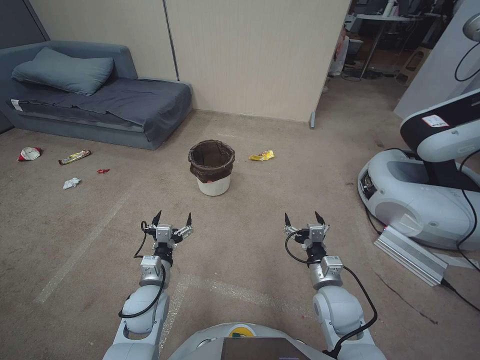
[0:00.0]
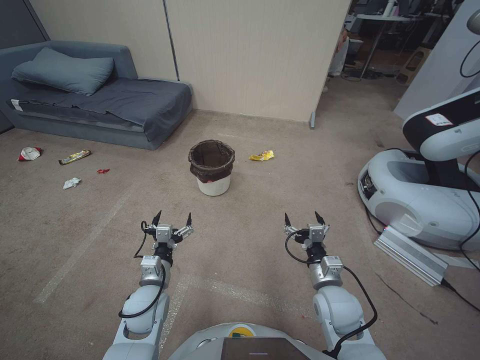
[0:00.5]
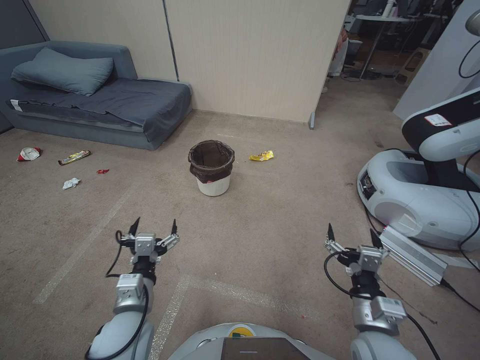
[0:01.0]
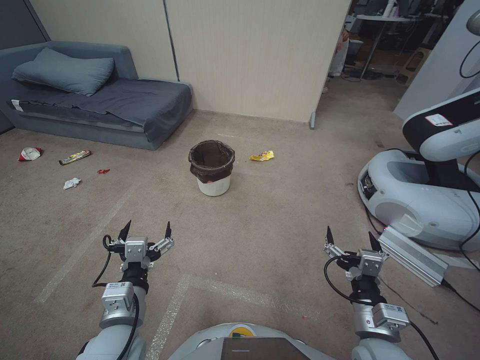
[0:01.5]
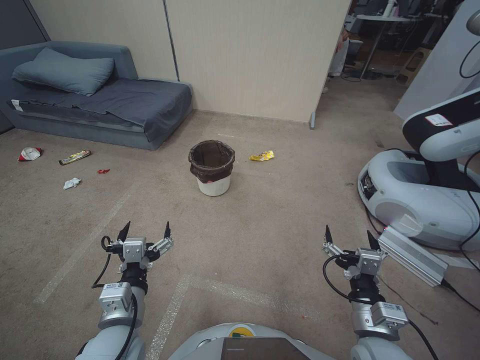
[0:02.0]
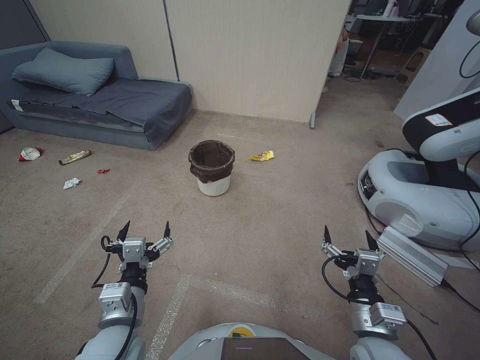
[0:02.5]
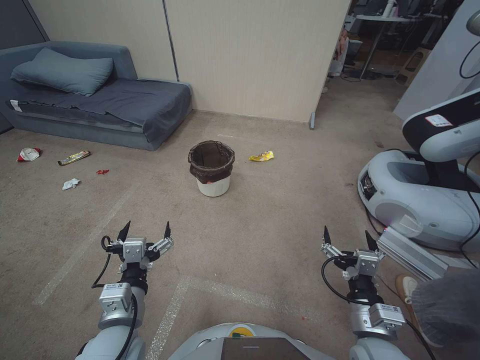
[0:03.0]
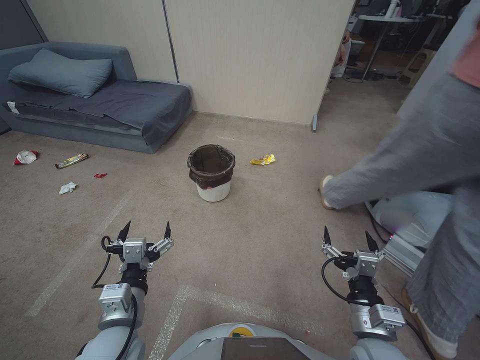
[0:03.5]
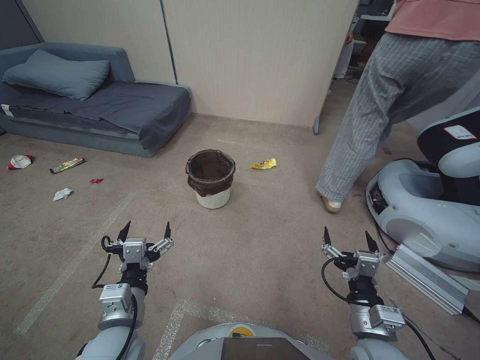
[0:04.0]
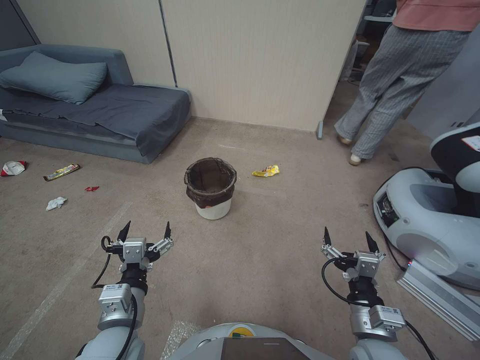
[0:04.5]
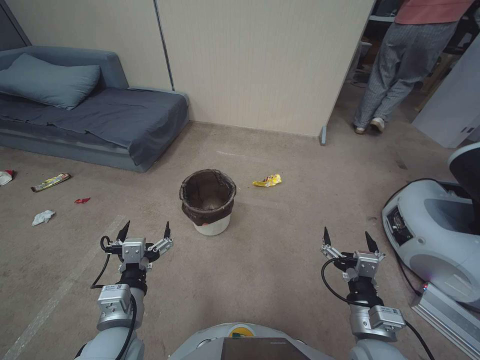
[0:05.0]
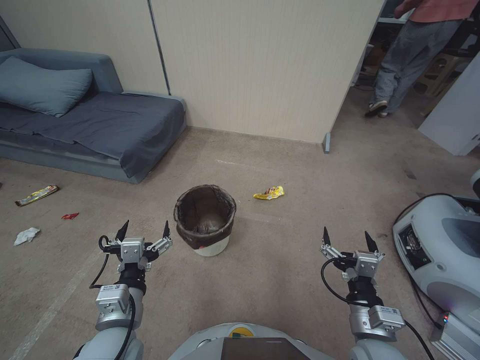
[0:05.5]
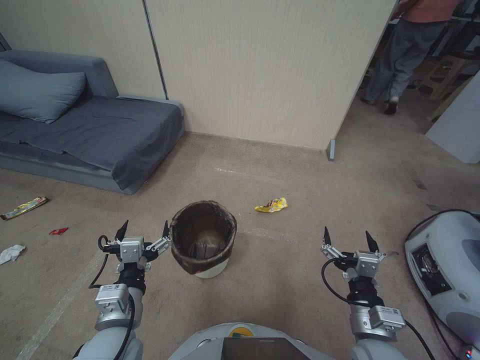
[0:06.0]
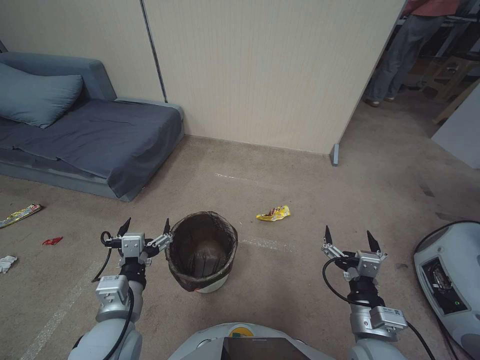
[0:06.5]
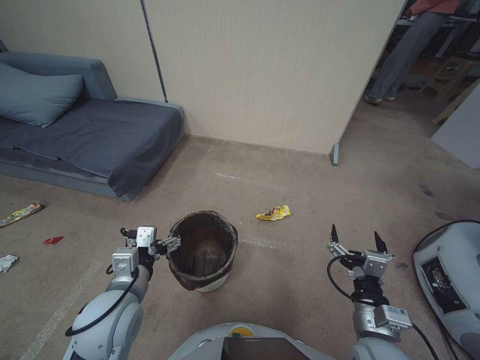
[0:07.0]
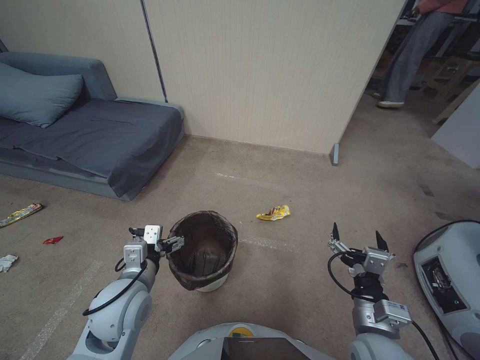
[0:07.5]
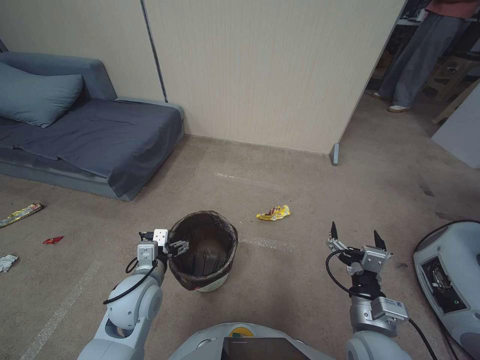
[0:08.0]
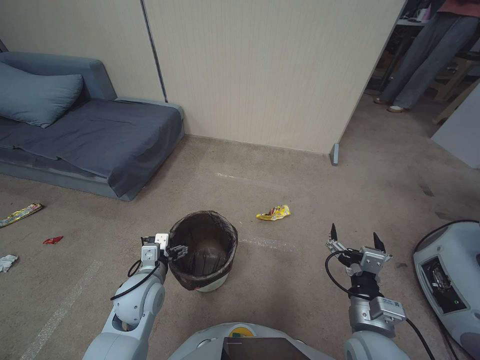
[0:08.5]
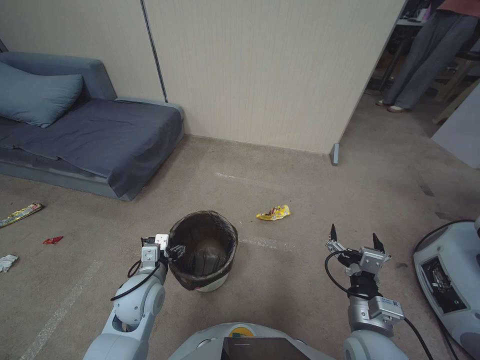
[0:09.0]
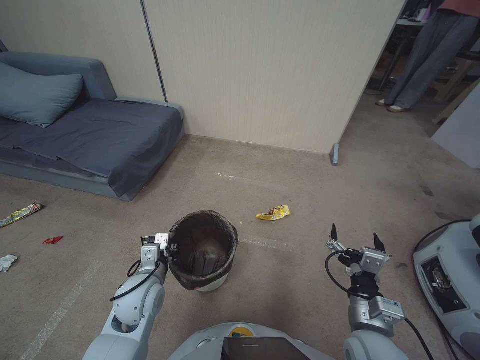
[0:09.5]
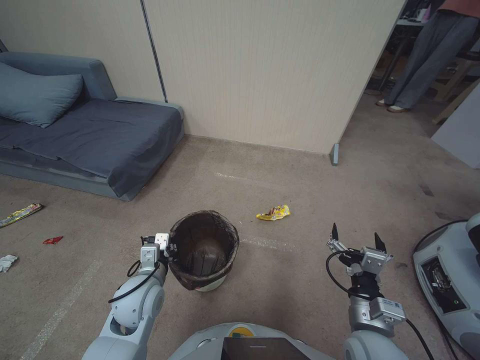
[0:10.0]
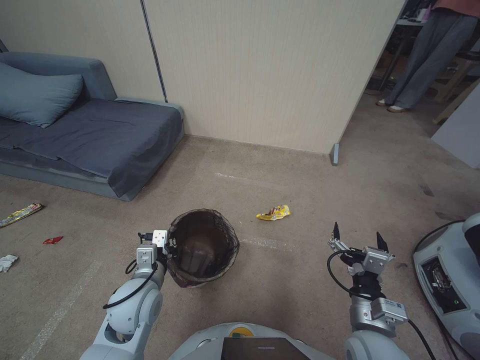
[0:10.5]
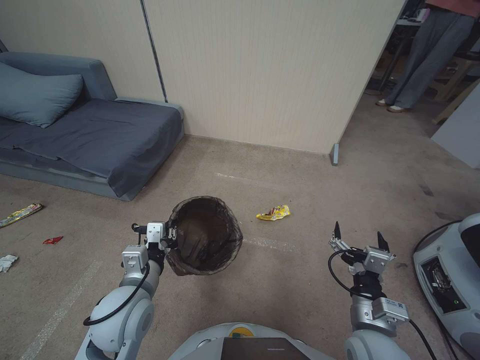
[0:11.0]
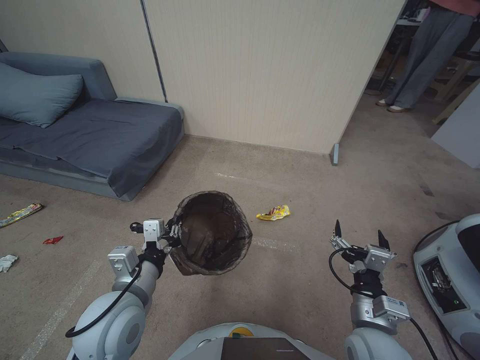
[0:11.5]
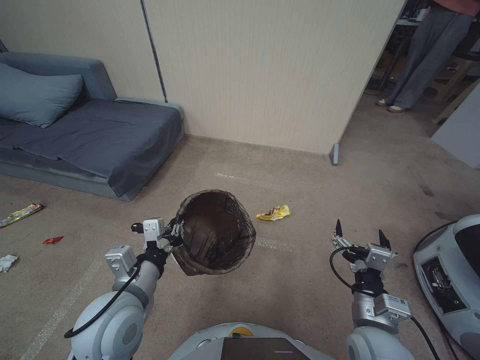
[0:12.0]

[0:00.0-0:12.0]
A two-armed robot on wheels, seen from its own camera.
Task of the whole recording: Pick up the trash bin, then pick up the garbage from the floor and place it into the trash bin.
0:06.0 to 0:08.0: The left gripper heads forward, covering roughly 10 cm.
0:08.0 to 0:10.0: The left gripper closes.
0:10.0 to 0:12.0: The left gripper is displaced upward and backward by approximately 10 cm.

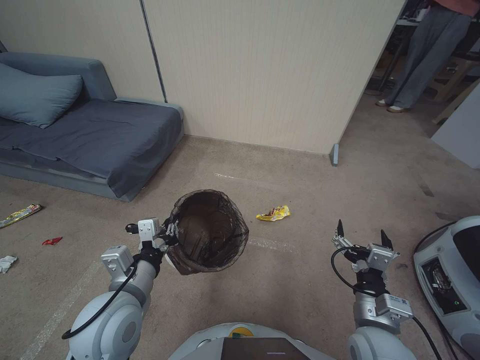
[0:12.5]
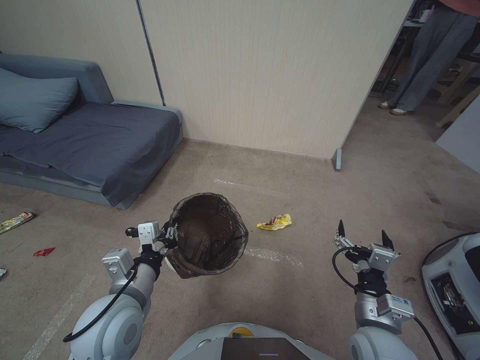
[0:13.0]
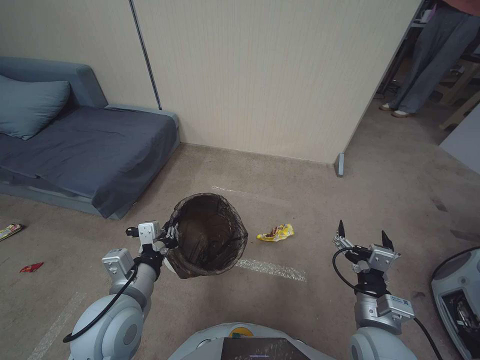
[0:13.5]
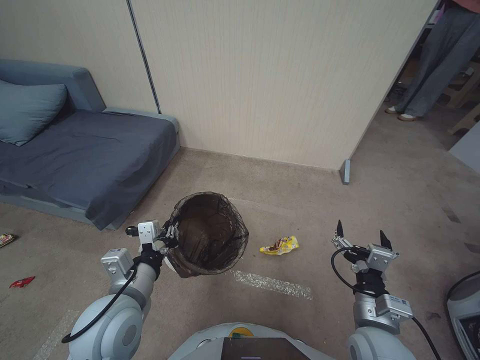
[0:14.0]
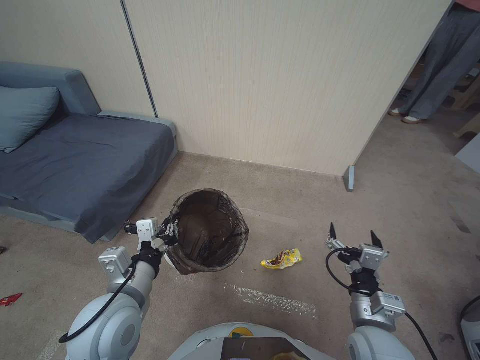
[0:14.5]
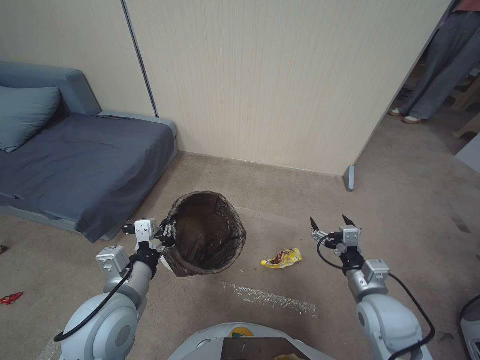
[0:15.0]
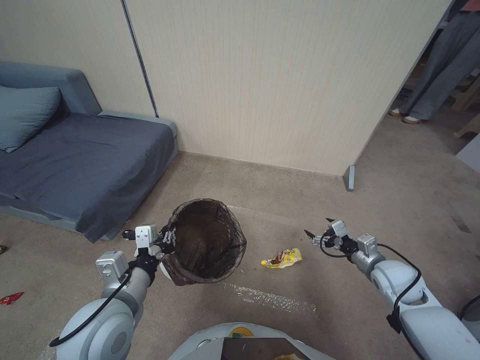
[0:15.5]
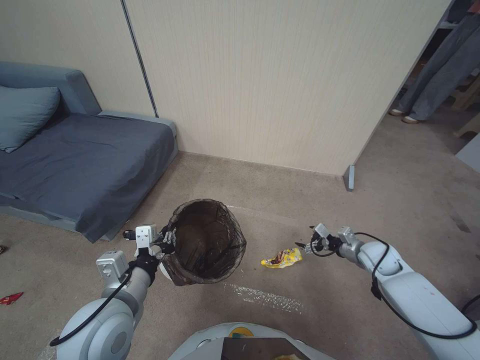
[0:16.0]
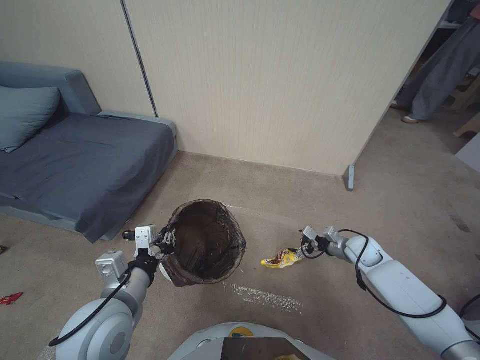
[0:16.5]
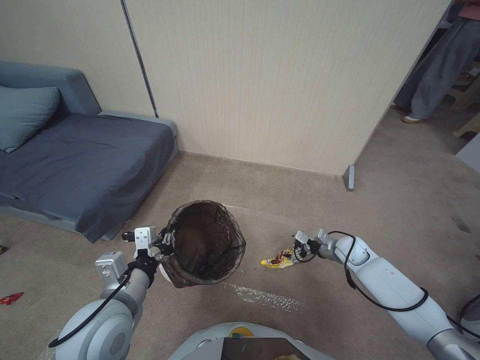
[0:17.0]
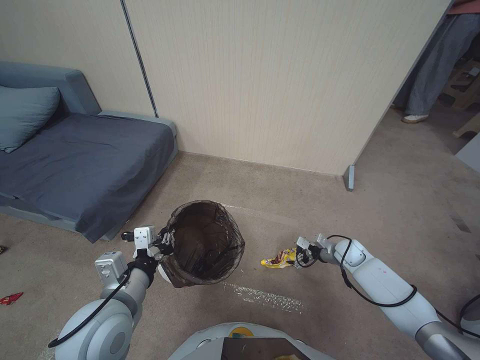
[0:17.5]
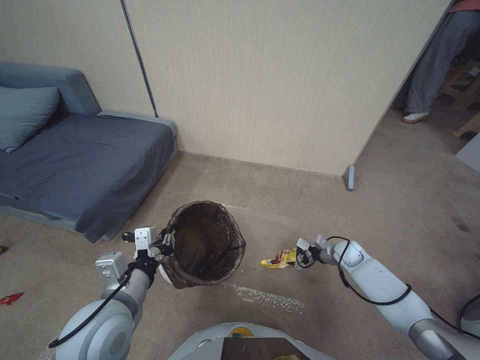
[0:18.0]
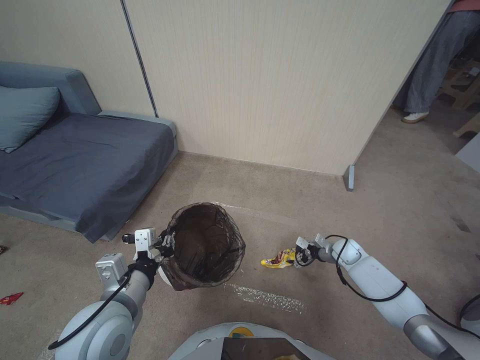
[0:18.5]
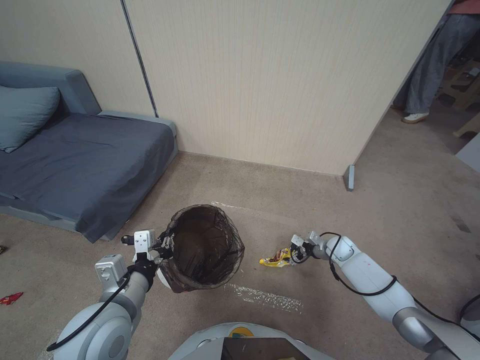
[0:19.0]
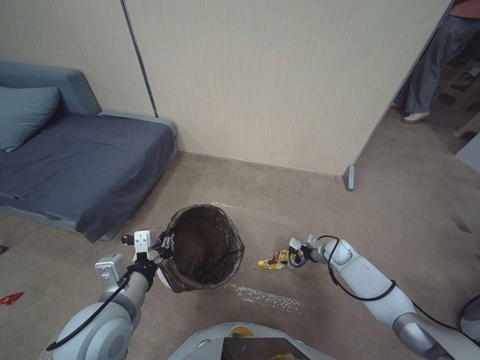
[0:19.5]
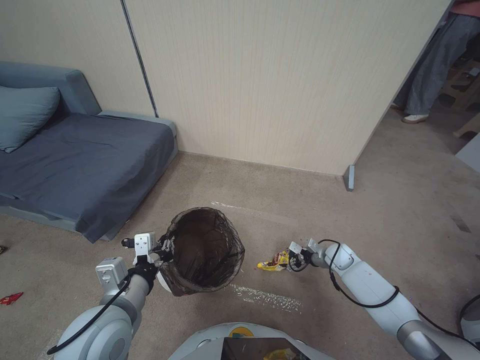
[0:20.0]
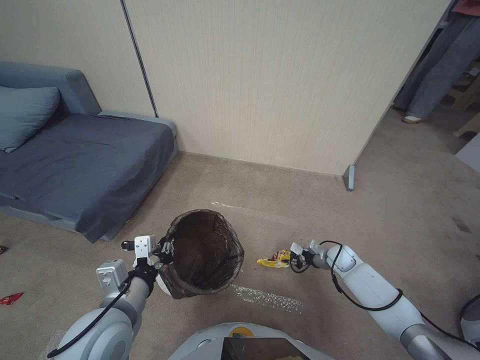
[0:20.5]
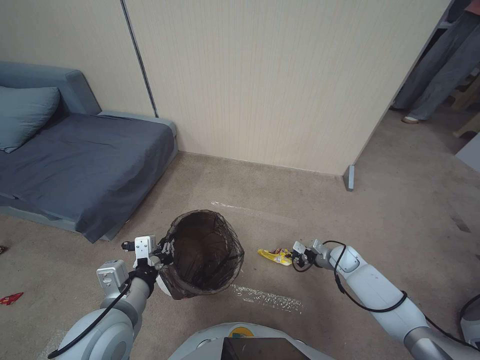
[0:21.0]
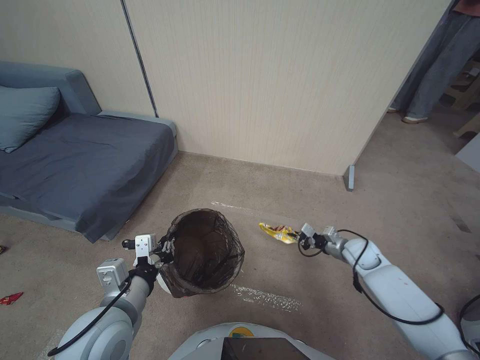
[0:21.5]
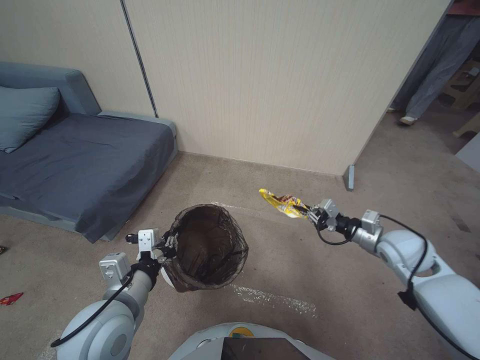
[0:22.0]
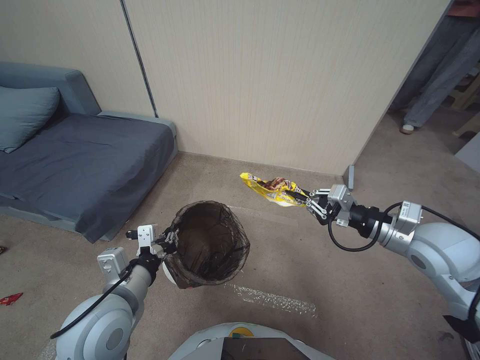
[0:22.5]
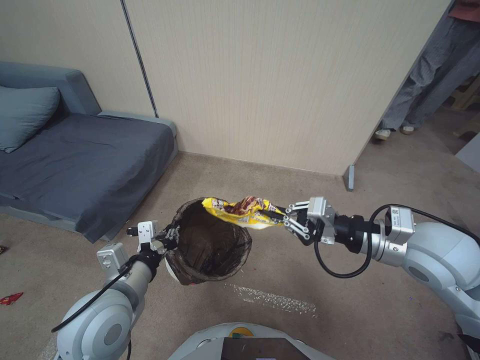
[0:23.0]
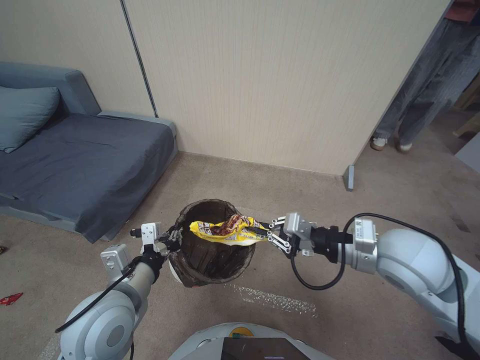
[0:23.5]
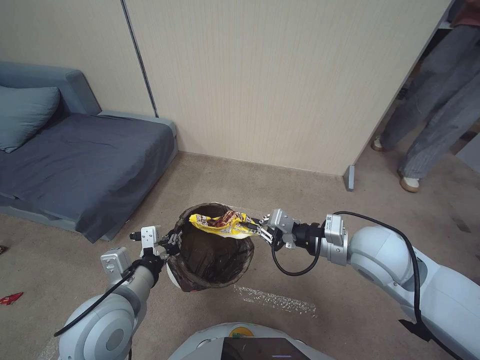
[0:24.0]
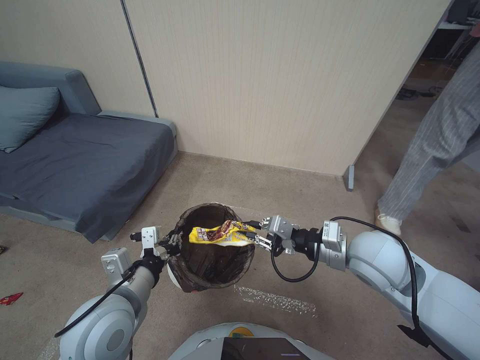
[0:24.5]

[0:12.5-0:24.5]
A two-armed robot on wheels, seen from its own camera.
Task of the whole recording: Pick up the trash bin, then pick up the garbage from the floor and place it into the trash bin.
0:14.5 to 0:16.5: The right gripper travels forward, to the right and downward by some 30 cm.
0:16.5 to 0:18.5: The right gripper shifts some 10 cm downward.
0:18.5 to 0:20.5: The right gripper closes.
0:20.5 to 0:22.5: The right gripper is displaced upward by approximately 35 cm, and closes its fingers.
0:22.5 to 0:24.5: The right gripper is displaced to the left by about 10 cm.

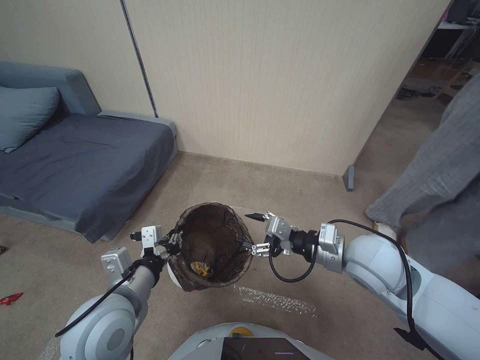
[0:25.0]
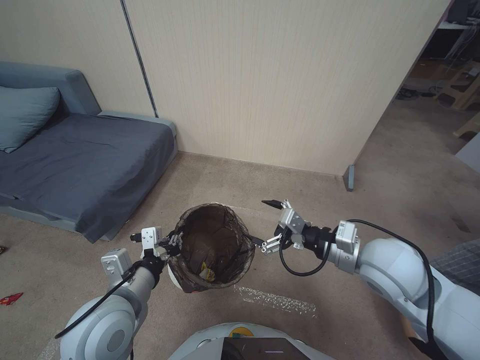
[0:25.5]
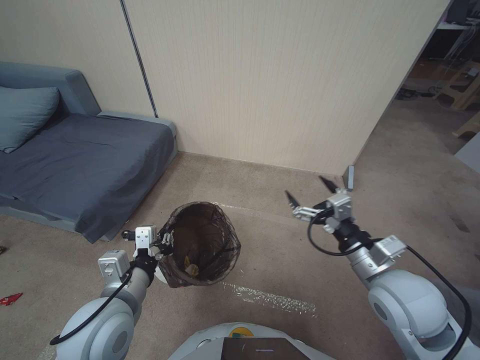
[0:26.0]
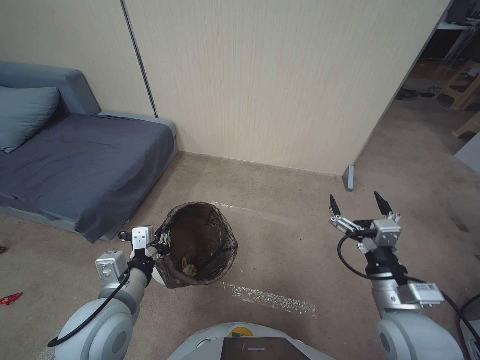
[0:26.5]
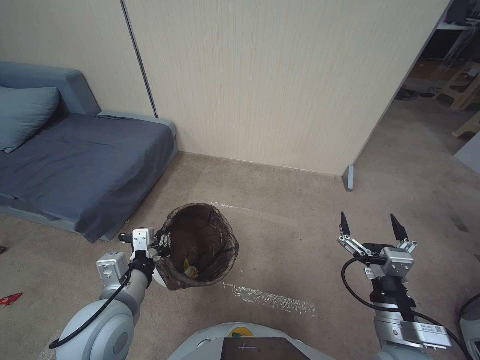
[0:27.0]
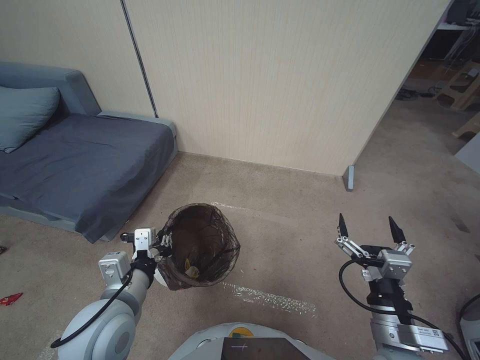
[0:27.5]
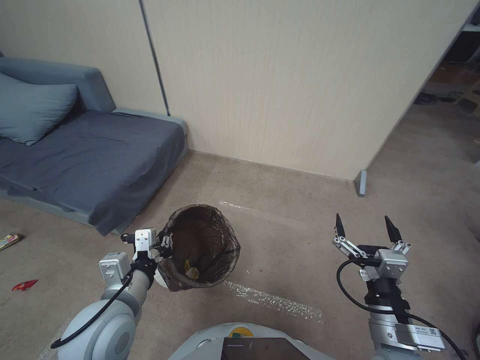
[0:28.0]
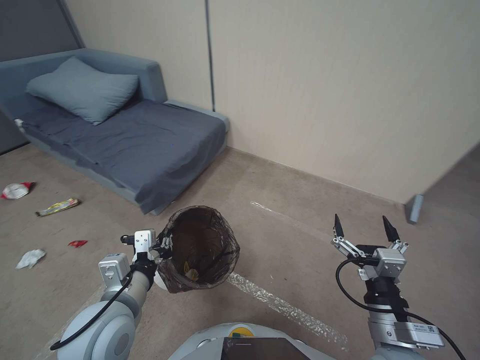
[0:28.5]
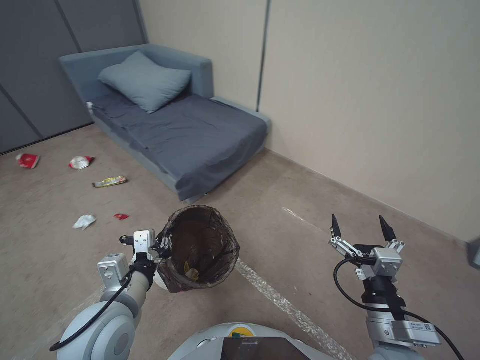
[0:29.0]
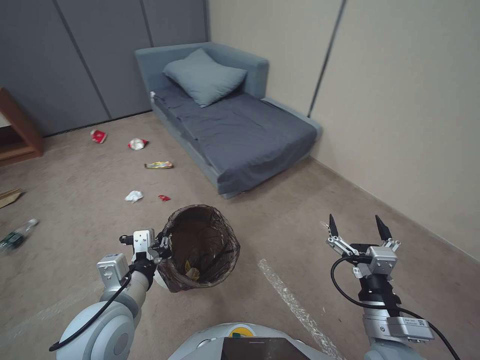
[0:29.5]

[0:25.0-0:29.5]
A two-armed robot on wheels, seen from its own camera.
Task of the whole recording: Pick up the trash bin, then pick up the garbage from the floor and place it into the trash bin.
0:25.0 to 0:27.0: The right gripper travels backward and downward by some 20 cm, and opens.
